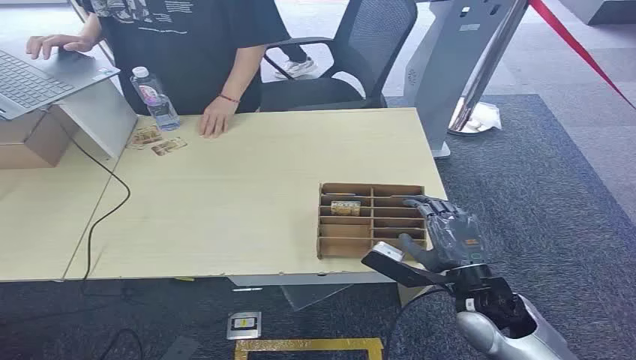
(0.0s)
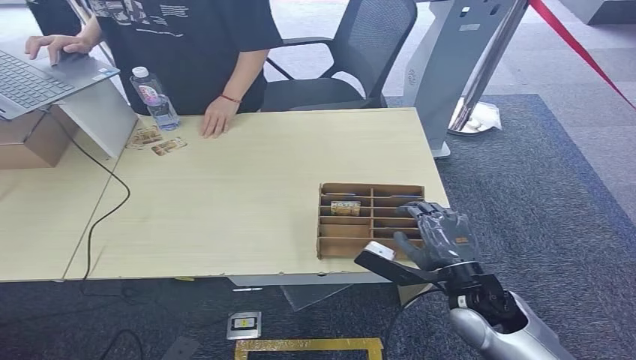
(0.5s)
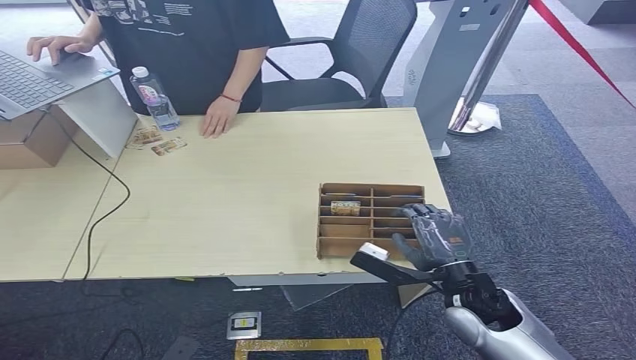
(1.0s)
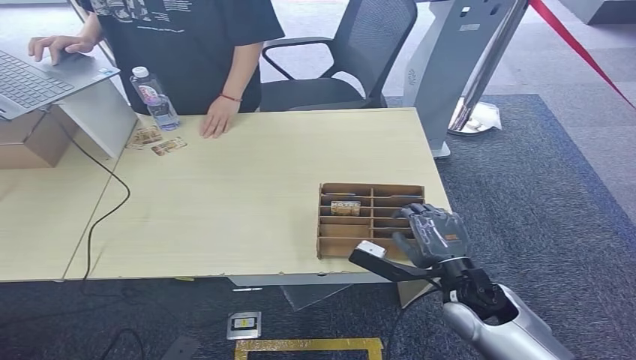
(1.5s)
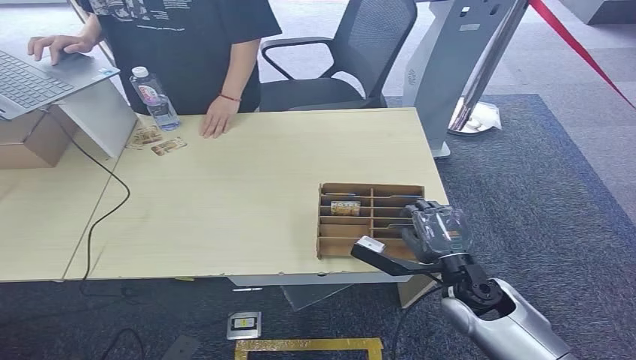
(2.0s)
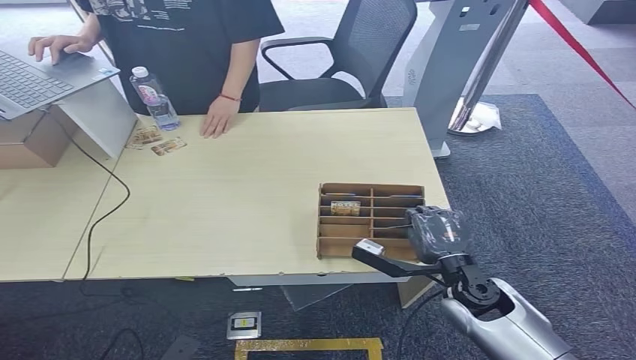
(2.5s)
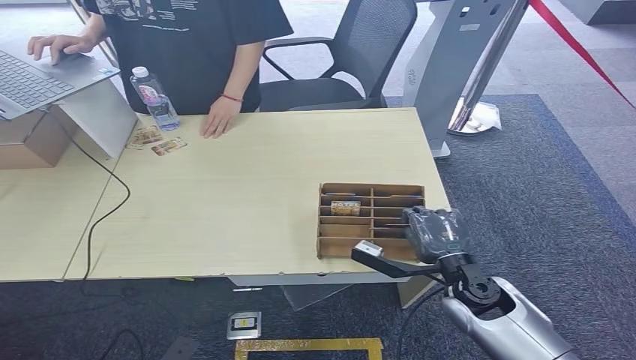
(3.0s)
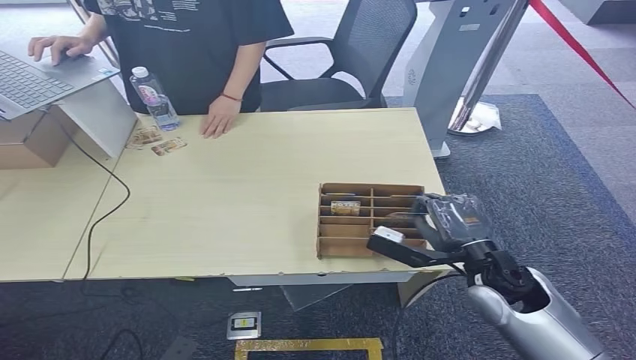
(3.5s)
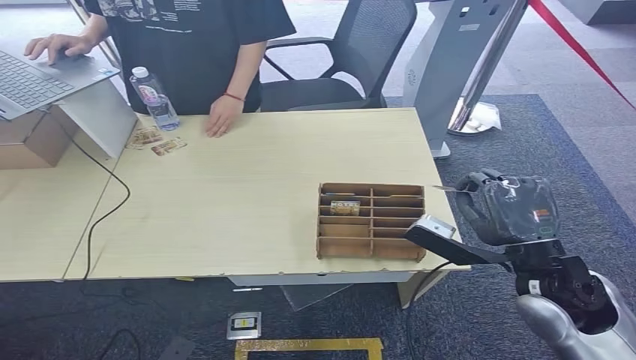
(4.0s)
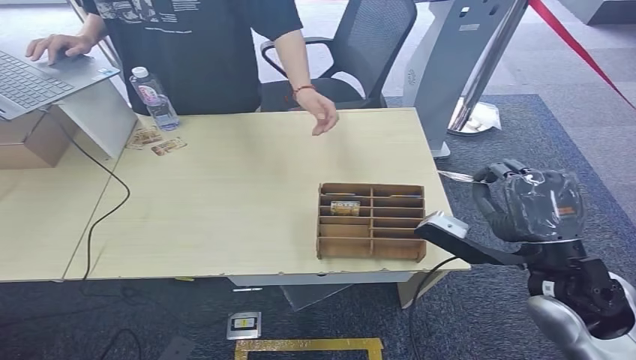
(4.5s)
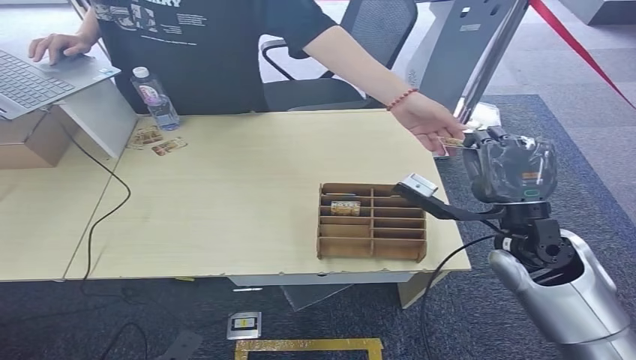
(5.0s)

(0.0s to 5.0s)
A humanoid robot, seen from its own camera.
Step, 0.0s - 4.0s: Pick up the room card from the card holder.
Step, 4.5s - 5.0s: Hand the room card to the target.
2.5s - 5.0s: The right hand is displaced upward by some 15 cm.

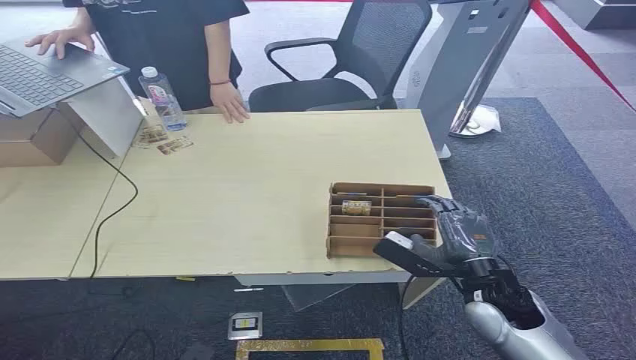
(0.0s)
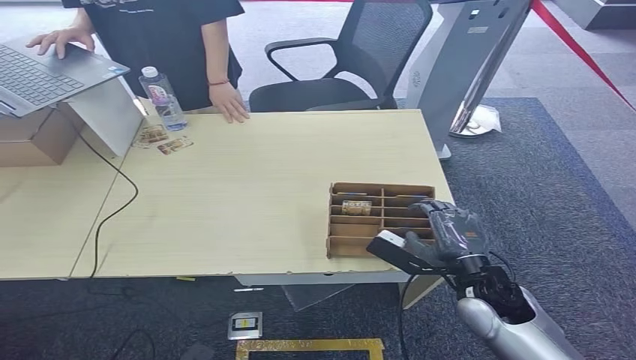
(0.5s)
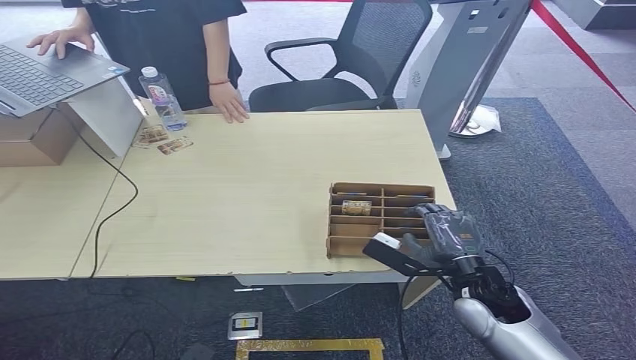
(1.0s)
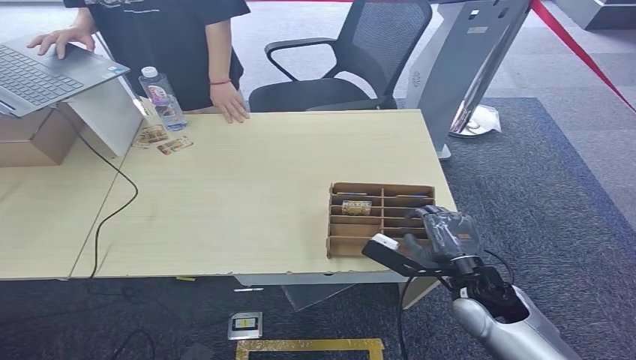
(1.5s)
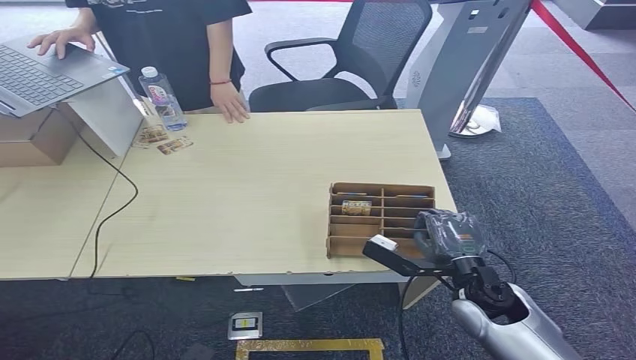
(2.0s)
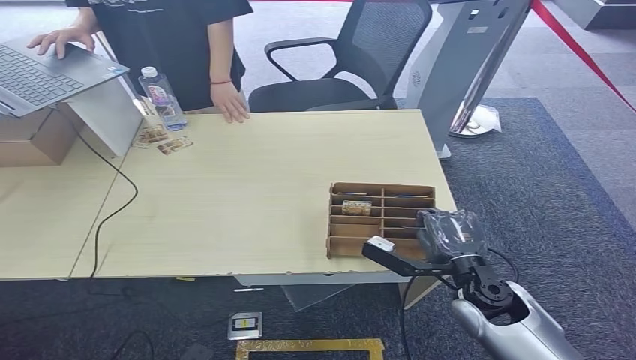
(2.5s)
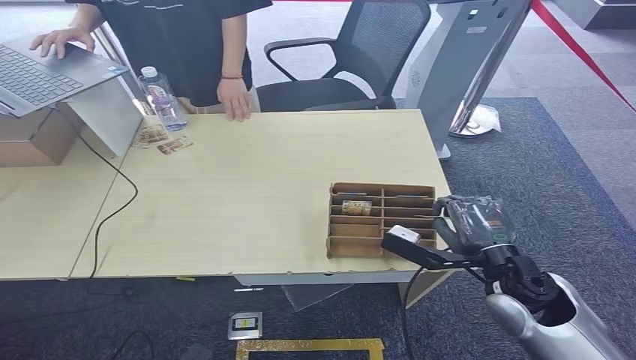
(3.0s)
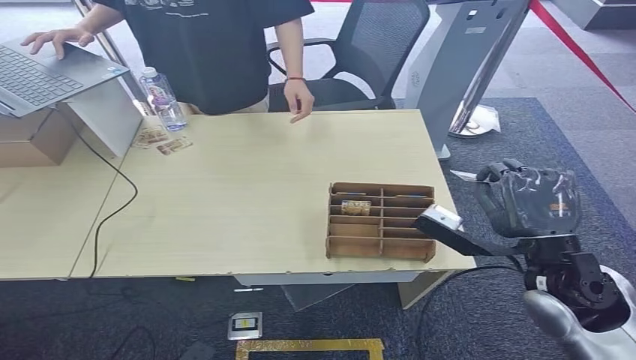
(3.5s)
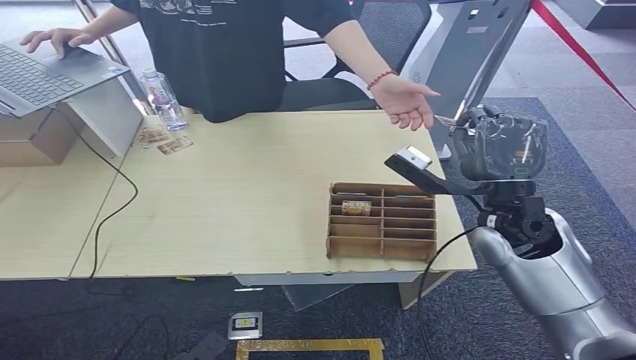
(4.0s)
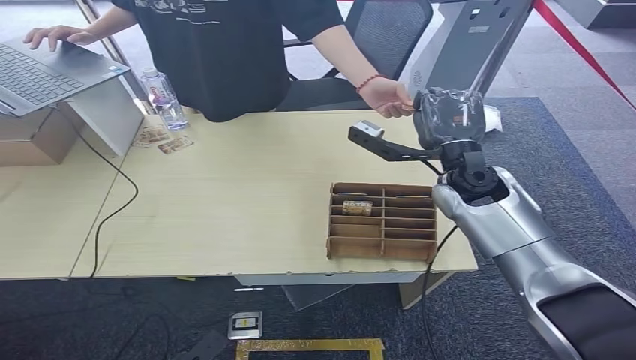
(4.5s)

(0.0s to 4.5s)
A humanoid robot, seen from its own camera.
Step, 0.0s - 3.5s: Pick up the room card from the card holder.
Step, 4.0s - 4.5s: Hand the room card to the target.

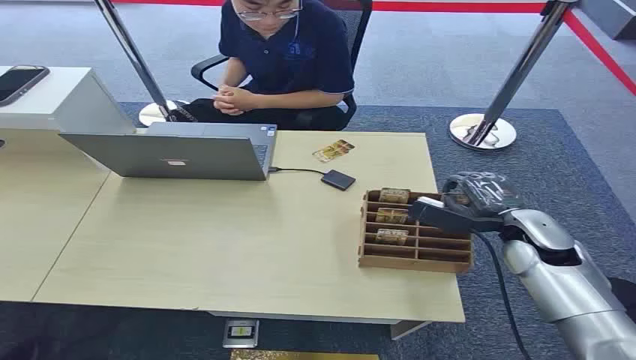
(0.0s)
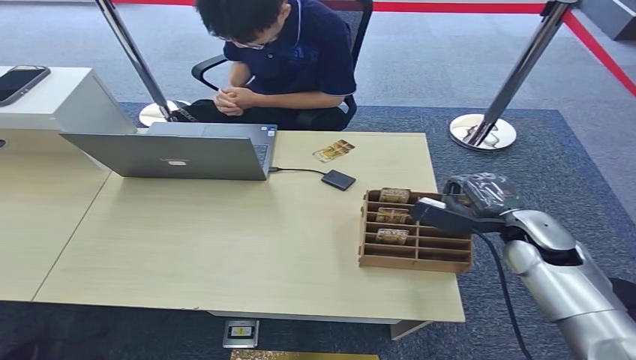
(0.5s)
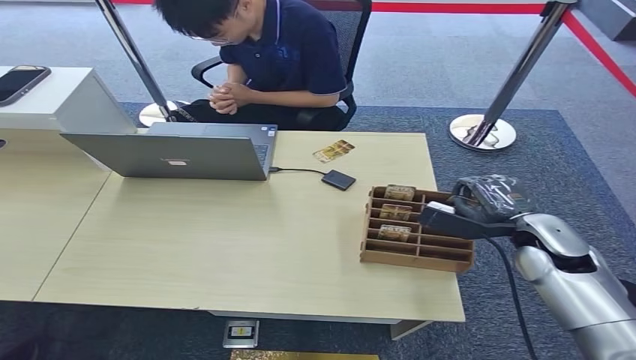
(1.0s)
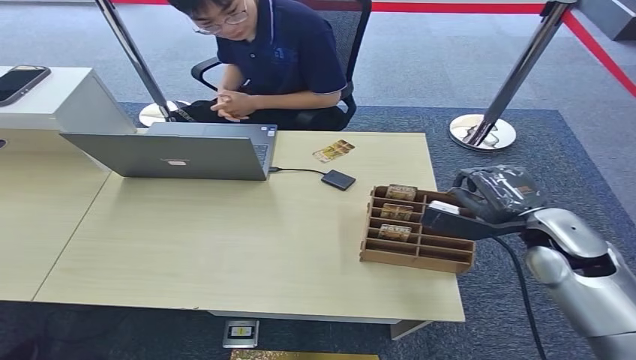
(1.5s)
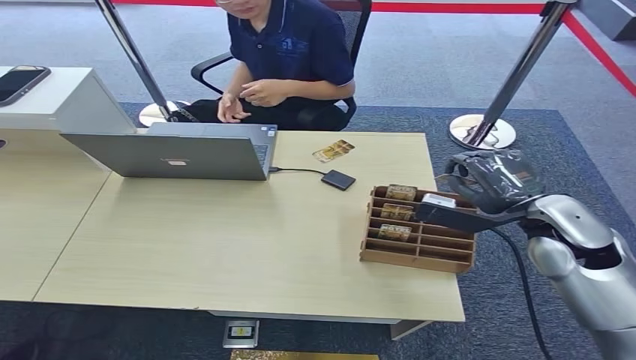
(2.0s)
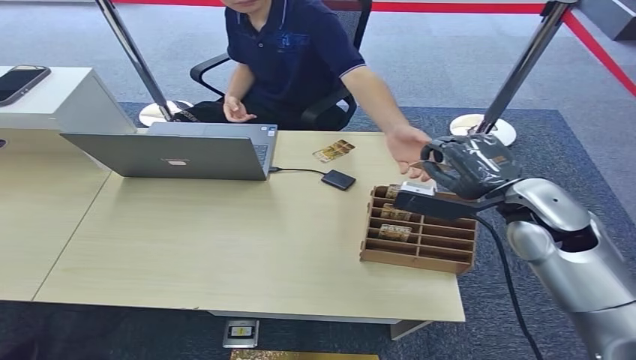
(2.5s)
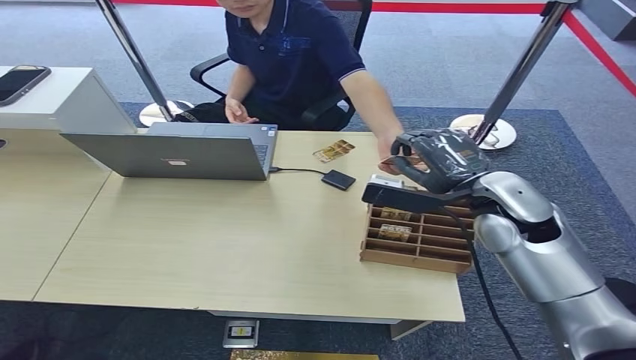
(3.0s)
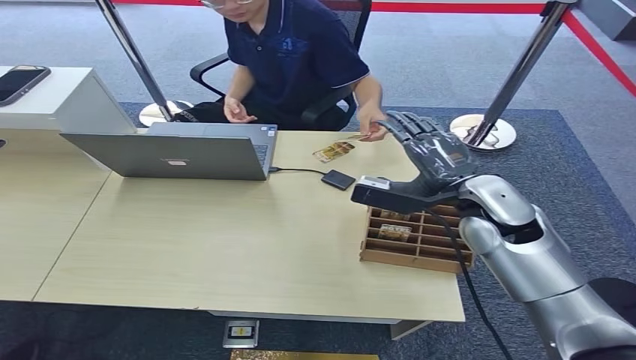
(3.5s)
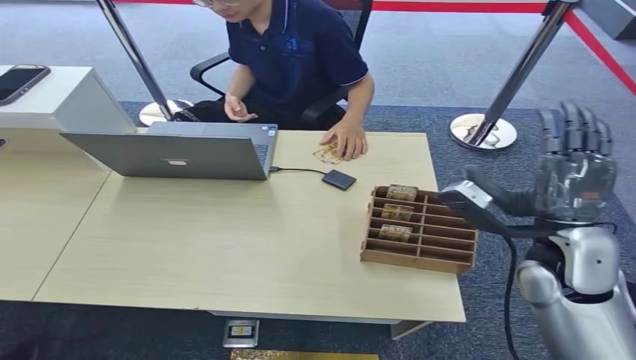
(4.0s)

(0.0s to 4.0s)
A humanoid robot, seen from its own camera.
Step, 0.0s - 1.5s: Pick up the room card from the card holder.
Step, 2.0s - 4.0s: Hand the room card to the target.
